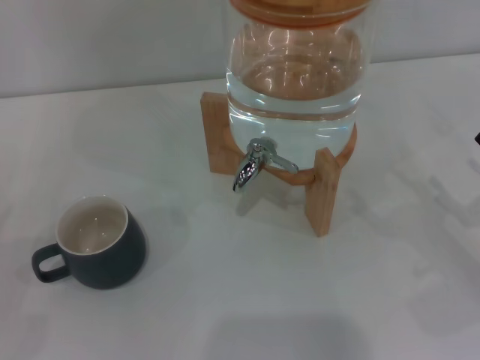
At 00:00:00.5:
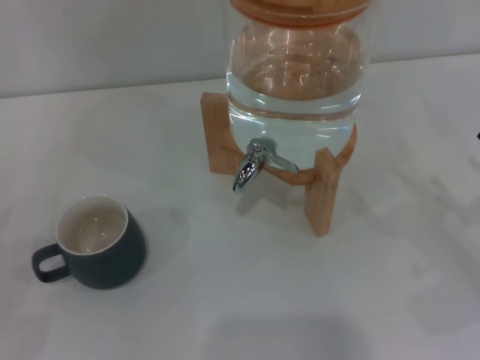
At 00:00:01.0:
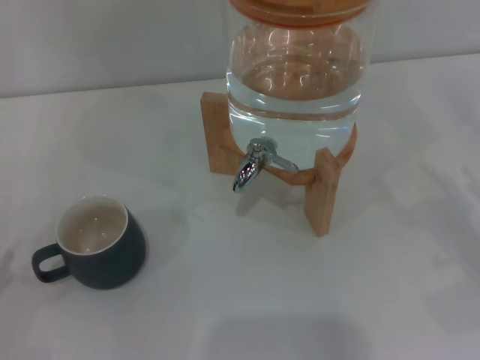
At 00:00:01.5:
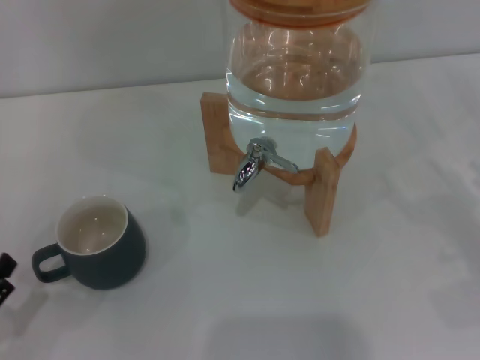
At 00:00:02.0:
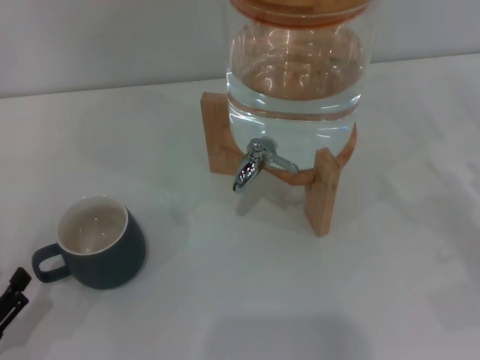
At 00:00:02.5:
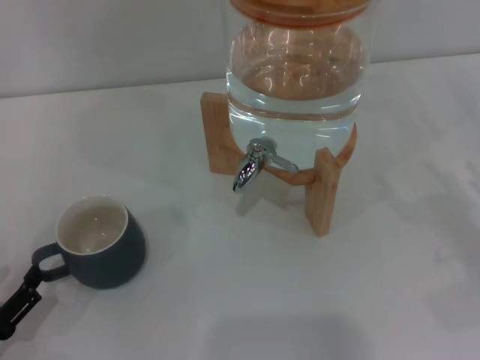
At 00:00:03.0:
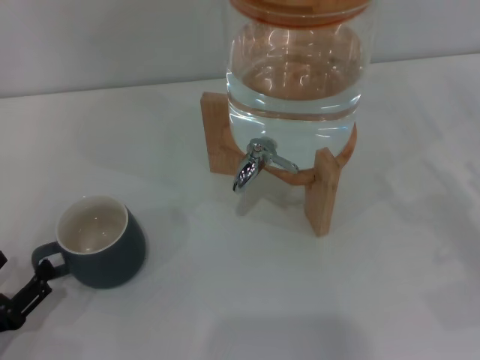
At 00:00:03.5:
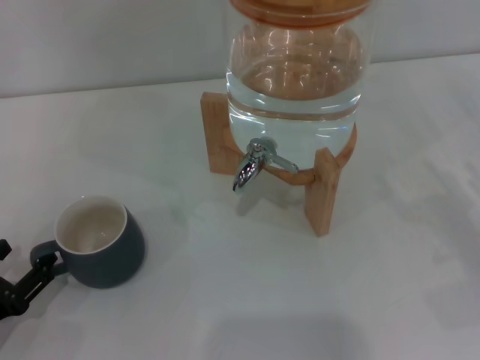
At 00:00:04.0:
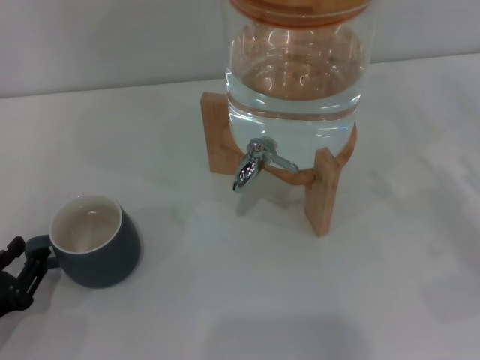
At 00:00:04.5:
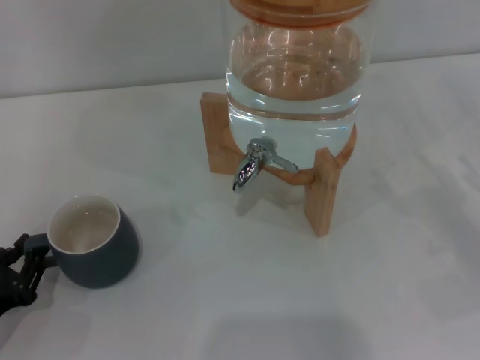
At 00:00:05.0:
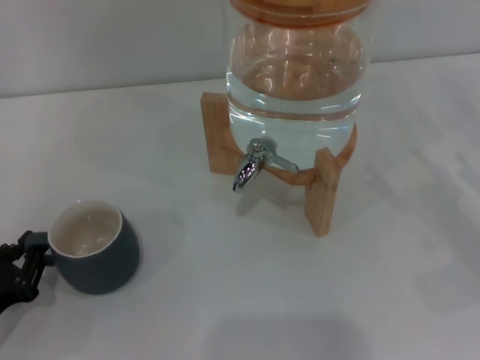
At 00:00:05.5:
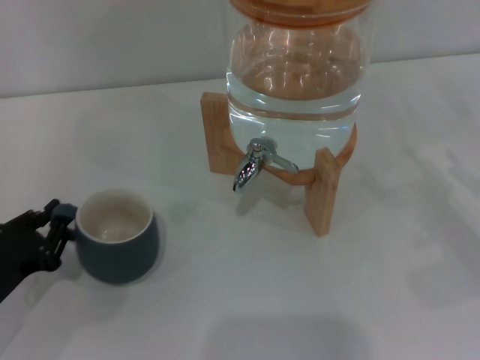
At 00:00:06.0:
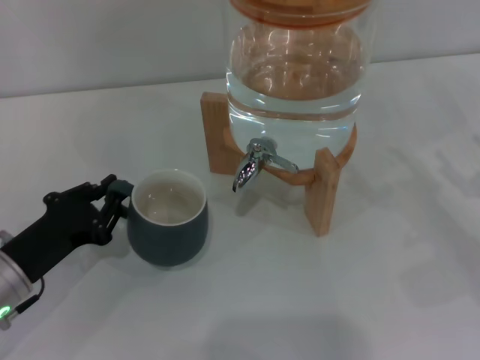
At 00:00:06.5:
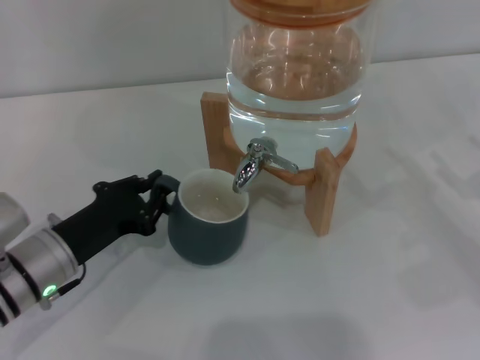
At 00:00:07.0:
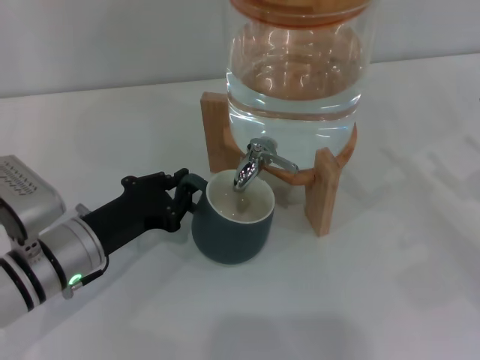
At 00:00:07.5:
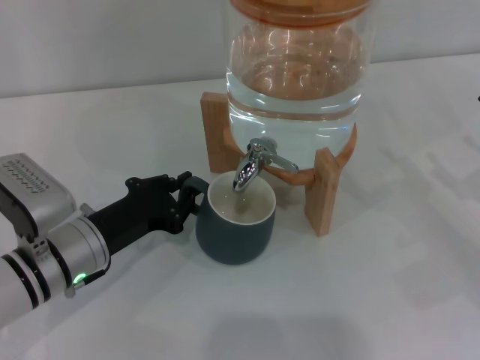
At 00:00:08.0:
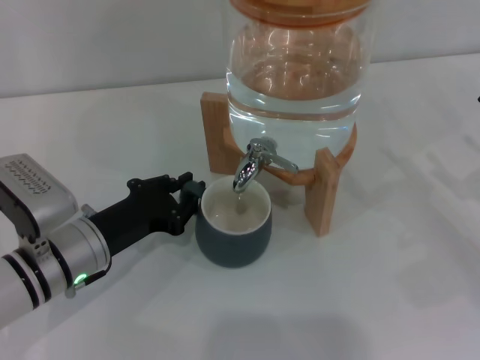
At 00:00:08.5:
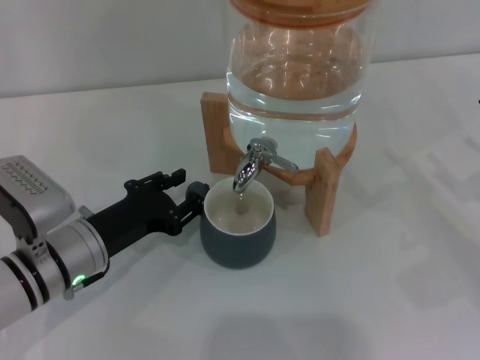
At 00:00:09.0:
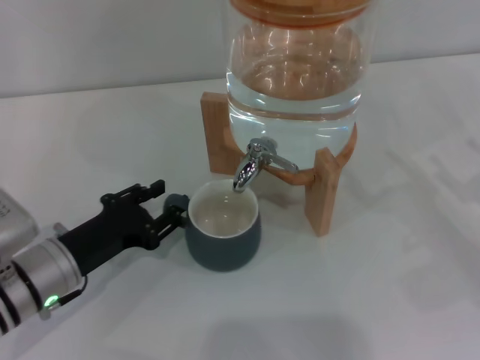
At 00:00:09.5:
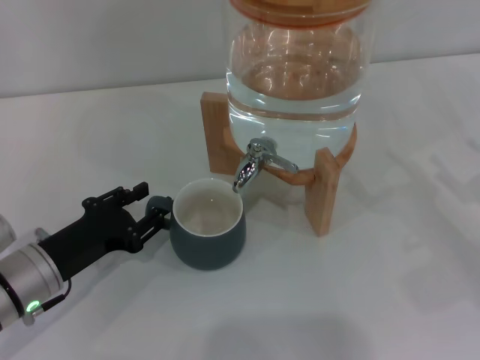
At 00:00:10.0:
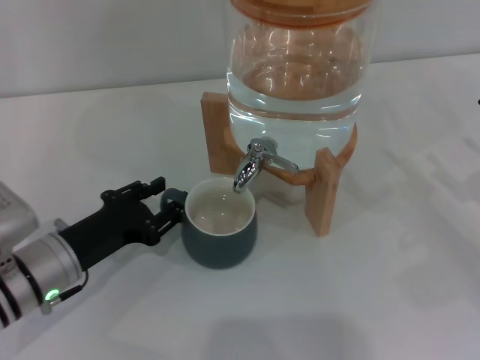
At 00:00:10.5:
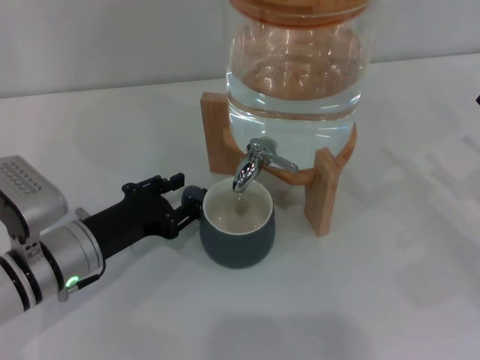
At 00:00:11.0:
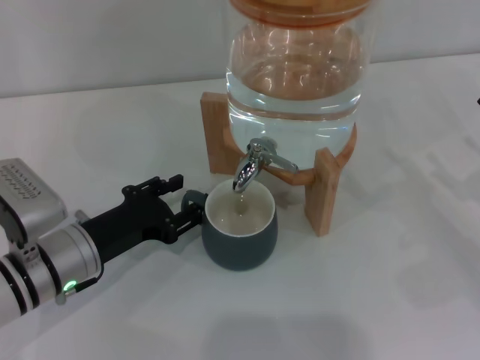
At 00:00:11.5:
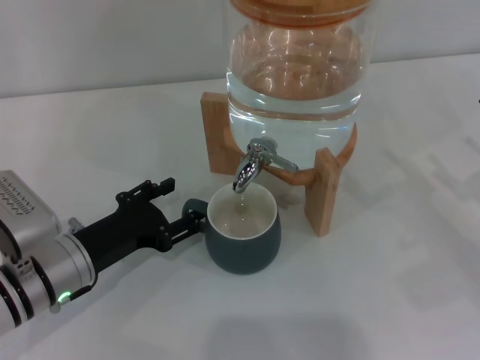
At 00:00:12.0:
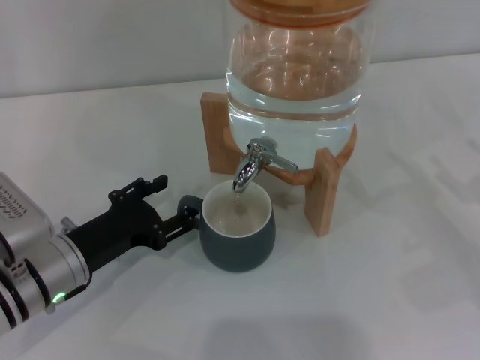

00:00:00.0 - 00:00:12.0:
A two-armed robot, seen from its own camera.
Task of the whole recording: the left gripper pick up the black cup and place it horizontally under the faucet, the right gripper turn on the faucet to fill the cup, and then turn off the faucet.
00:00:00.0 - 00:00:02.0: The left gripper moves backward, about 5 cm.
00:00:02.0 - 00:00:04.0: The left gripper changes place by some 5 cm.
00:00:04.0 - 00:00:06.0: The left gripper shifts approximately 10 cm forward and to the right, and closes its fingers.
00:00:06.0 - 00:00:08.0: The left gripper moves to the right, roughly 5 cm.
00:00:08.0 - 00:00:10.0: The left gripper opens.
00:00:10.0 - 00:00:12.0: The grippers make only small movements.

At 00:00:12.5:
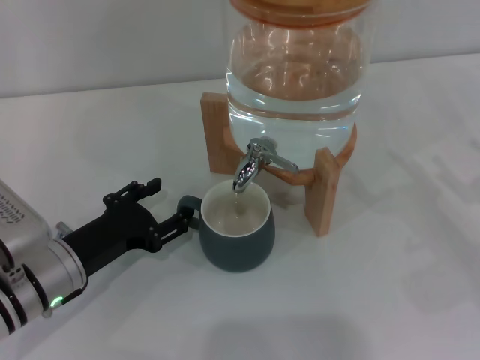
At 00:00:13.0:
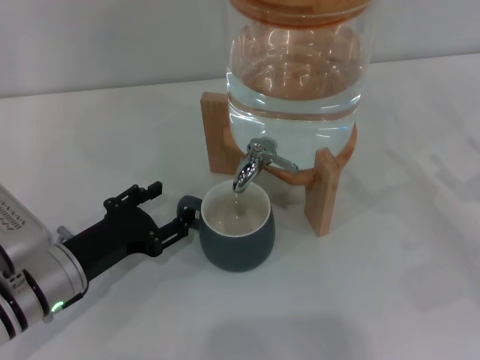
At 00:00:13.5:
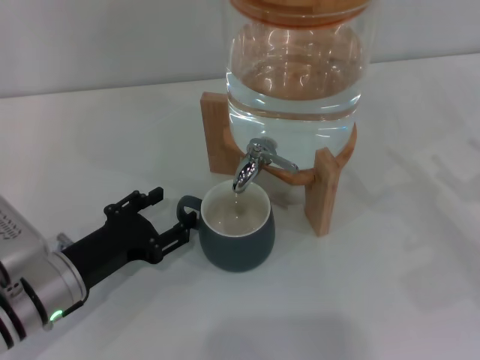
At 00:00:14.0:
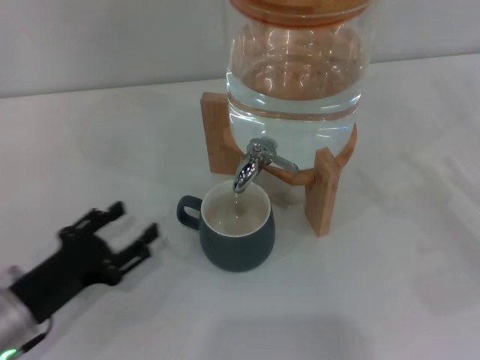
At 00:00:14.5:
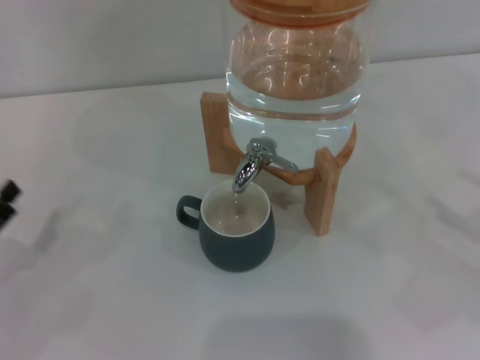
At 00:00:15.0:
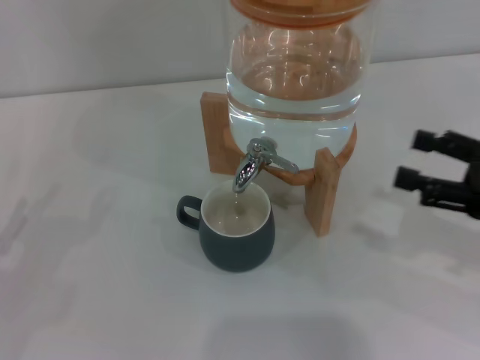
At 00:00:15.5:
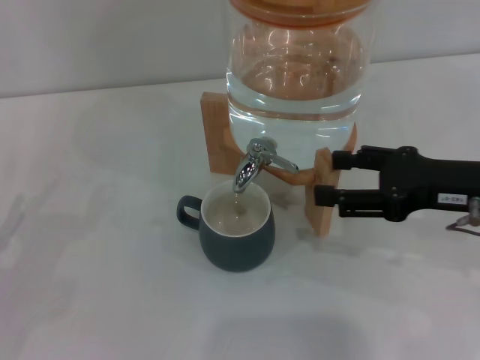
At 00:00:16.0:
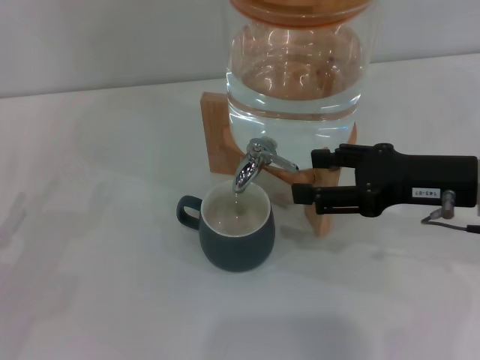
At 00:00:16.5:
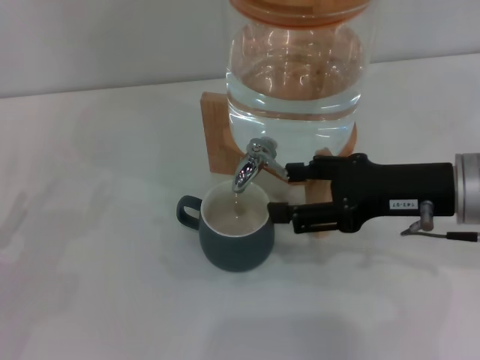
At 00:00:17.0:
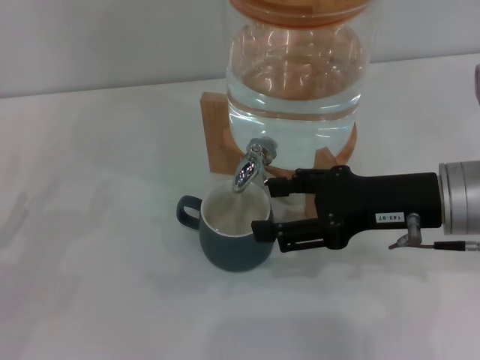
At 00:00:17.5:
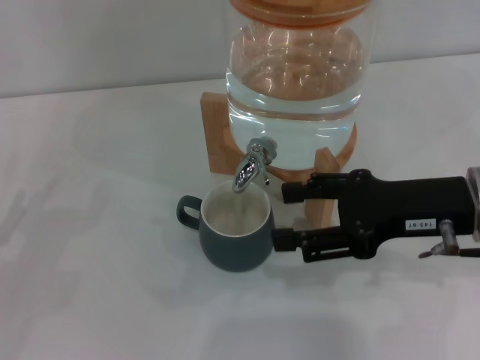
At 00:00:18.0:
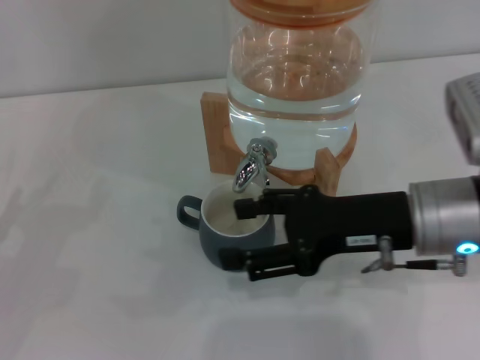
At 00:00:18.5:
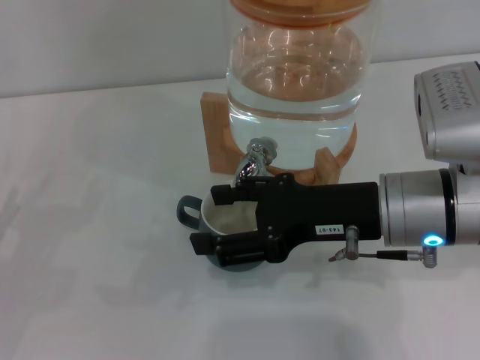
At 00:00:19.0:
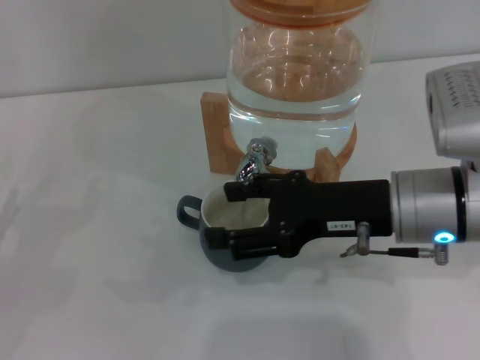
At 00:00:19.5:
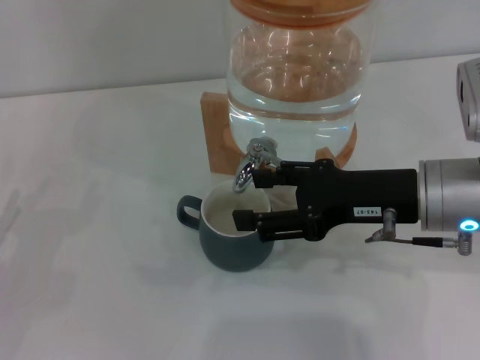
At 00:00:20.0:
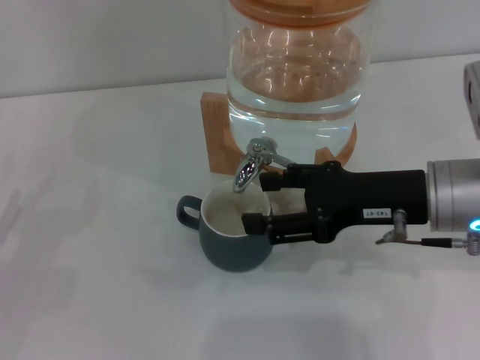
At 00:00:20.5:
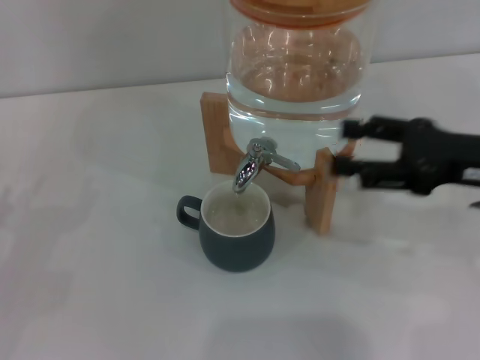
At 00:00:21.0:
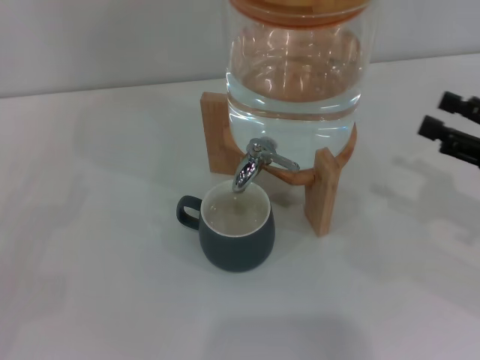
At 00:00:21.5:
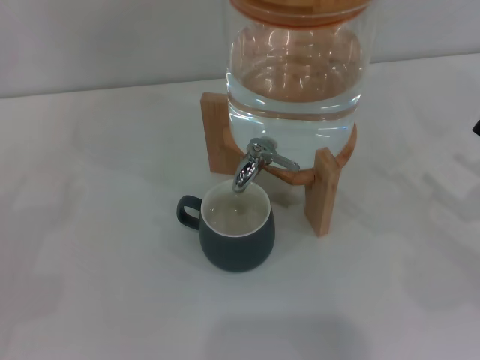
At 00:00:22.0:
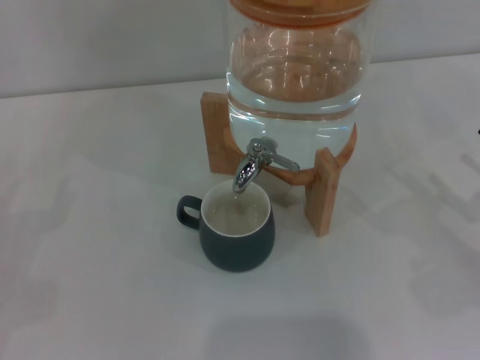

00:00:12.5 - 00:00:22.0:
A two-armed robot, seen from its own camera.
Task of the whole recording: the left gripper pick up the black cup and place it horizontally under the faucet, the right gripper turn on the faucet to fill the cup, and then turn off the faucet.
Step, 00:00:14.0 - 00:00:18.0: Open the dispenser valve and fill the cup with water with the right gripper.
Step, 00:00:18.5 - 00:00:20.5: Close the dispenser valve with the right gripper.
00:00:12.5 - 00:00:14.5: The right gripper ends up about 5 cm from where it was. The left gripper heads to the left and backward, covering about 15 cm.
00:00:14.5 - 00:00:16.5: The right gripper shifts about 20 cm to the left and forward.
00:00:16.5 - 00:00:18.0: There are only small adjustments of the grippers.
00:00:18.0 - 00:00:20.0: There are only small adjustments of the grippers.
00:00:20.0 - 00:00:22.0: The right gripper goes about 20 cm to the right and downward.
